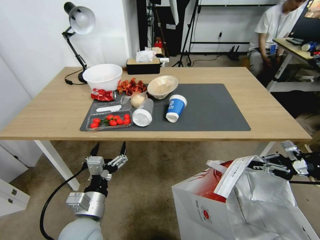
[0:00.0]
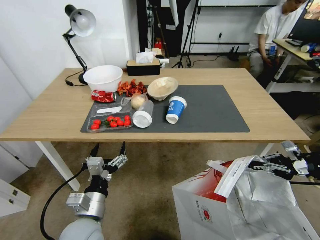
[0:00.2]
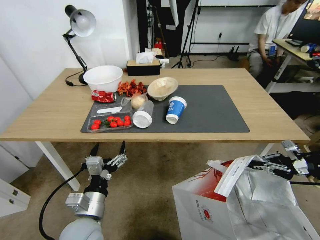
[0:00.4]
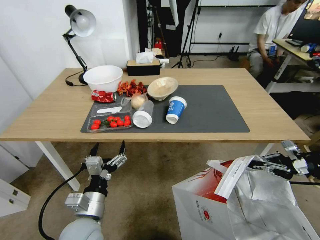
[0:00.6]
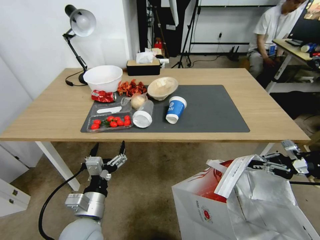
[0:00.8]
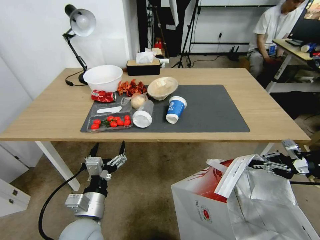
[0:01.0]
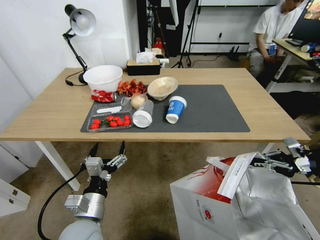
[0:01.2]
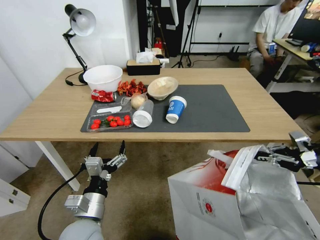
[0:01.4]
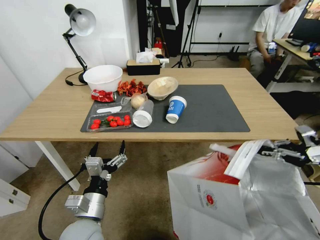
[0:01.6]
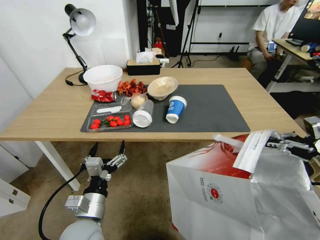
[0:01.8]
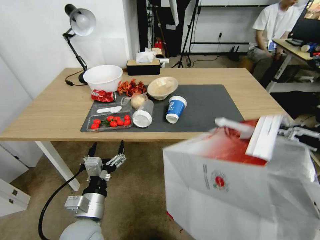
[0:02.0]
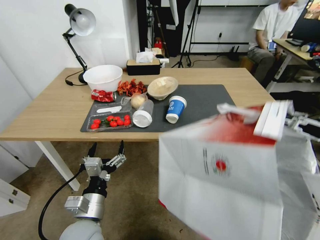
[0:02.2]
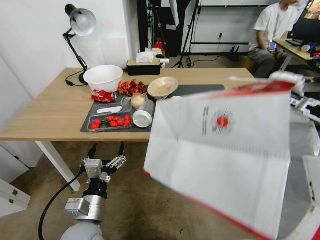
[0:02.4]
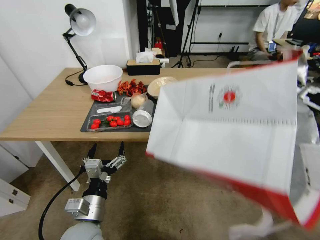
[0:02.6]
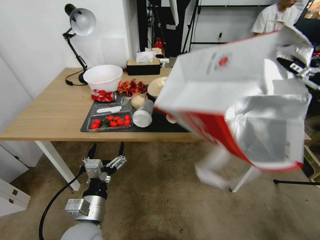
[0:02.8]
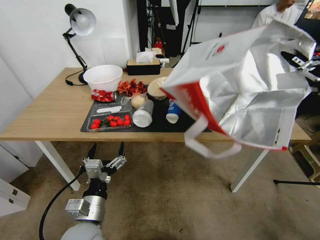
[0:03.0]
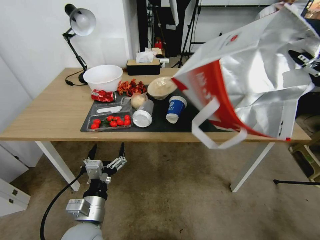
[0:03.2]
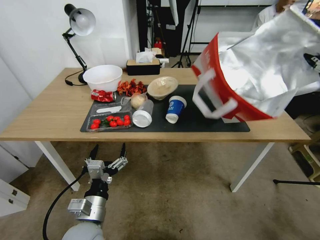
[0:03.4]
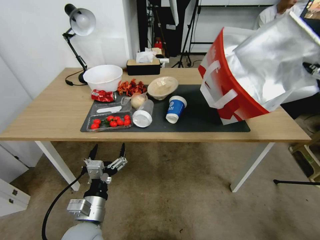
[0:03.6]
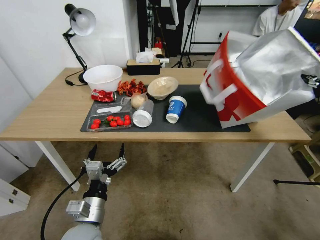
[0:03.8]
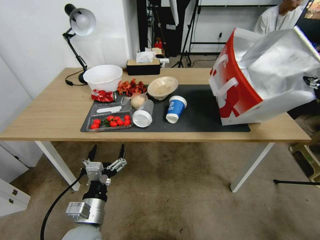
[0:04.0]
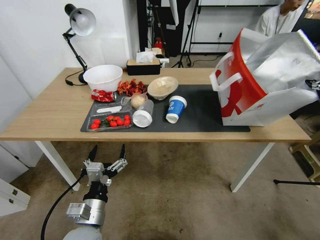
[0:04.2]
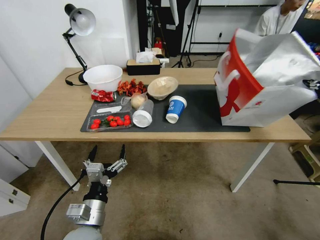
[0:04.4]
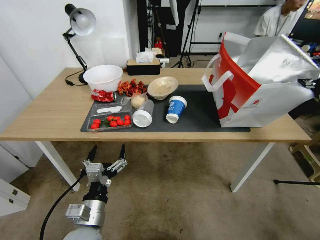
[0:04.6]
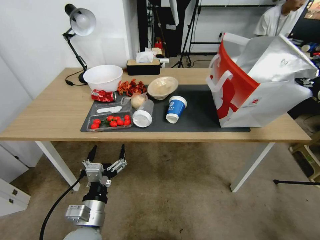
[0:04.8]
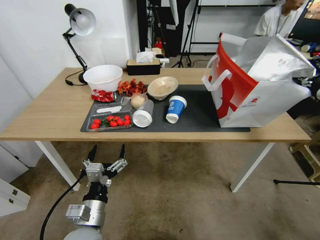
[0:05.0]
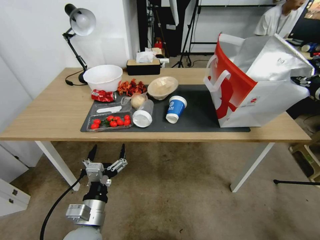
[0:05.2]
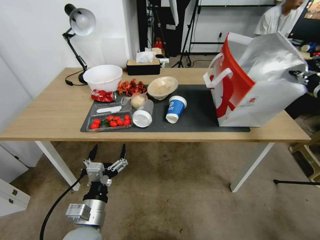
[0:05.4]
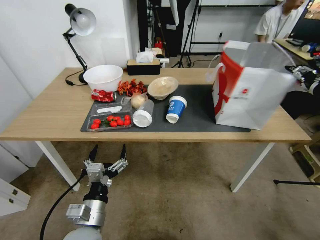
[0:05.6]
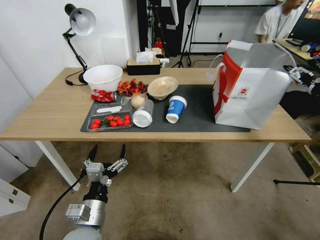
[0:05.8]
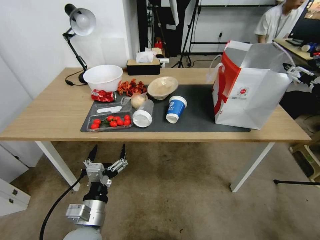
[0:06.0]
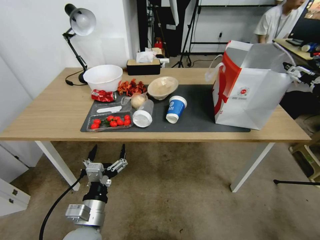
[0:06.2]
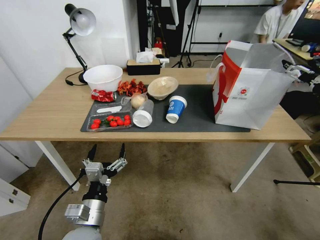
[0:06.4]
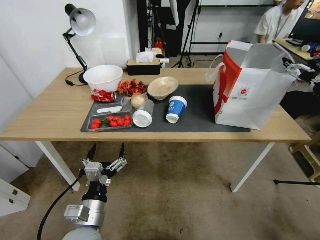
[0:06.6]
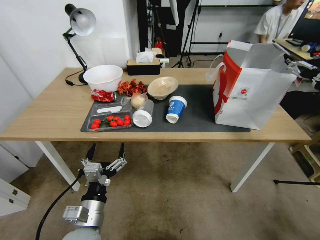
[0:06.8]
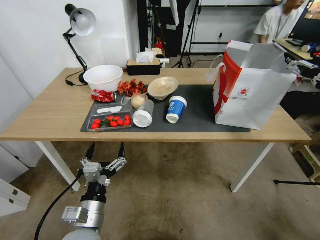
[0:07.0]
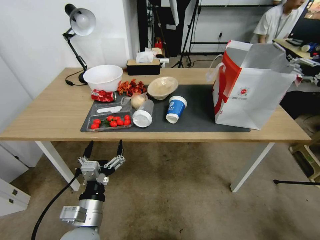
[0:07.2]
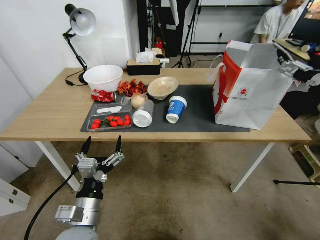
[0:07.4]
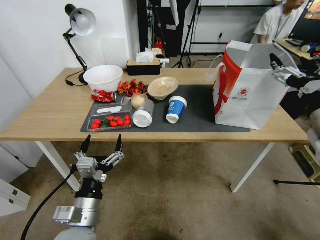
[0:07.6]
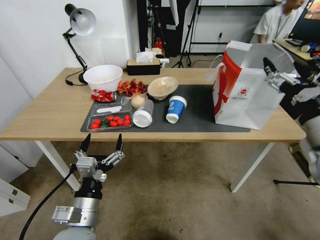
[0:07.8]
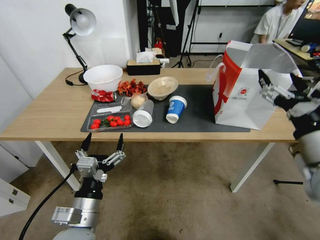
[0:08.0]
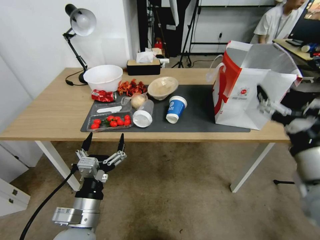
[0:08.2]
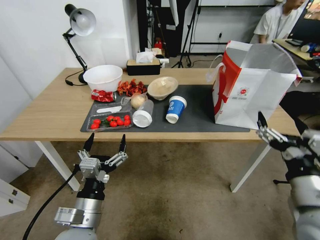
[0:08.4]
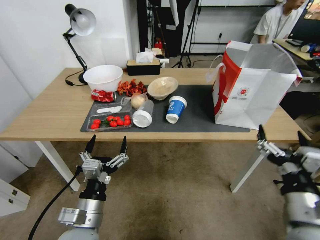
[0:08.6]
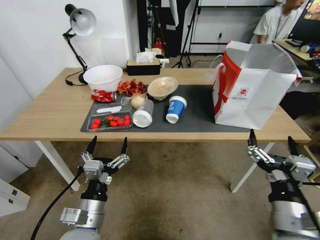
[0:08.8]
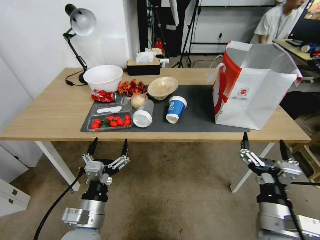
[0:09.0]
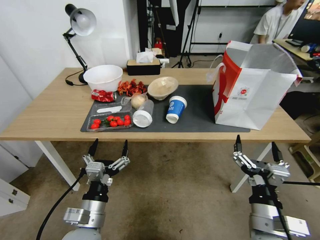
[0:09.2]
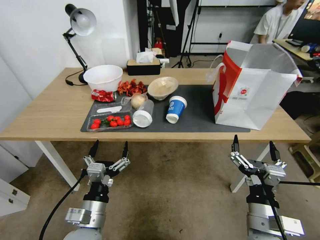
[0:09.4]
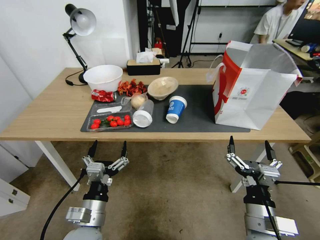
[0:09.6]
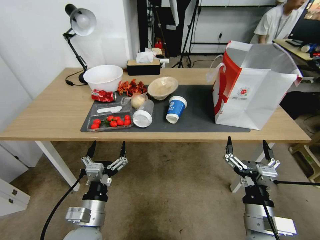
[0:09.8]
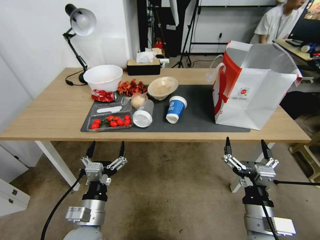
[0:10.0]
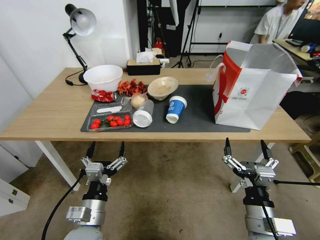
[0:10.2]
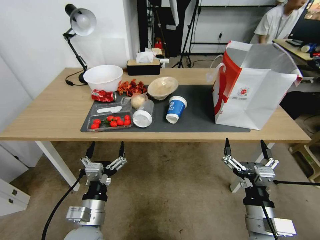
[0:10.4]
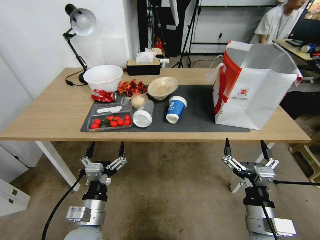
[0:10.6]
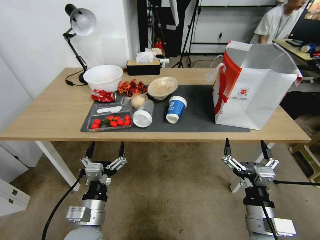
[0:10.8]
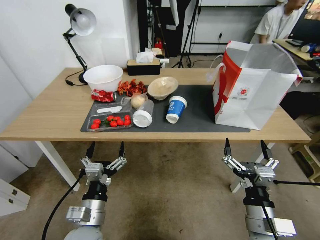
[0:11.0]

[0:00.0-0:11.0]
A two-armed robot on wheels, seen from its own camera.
Task of the whole recording: Pick up the food delivery bag from the floor and place it on the table.
0:00.0 to 0:01.6: The grippers move only a little.
0:01.6 to 0:03.2: The right gripper heads upward and to the left, covering some 10 cm.
0:04.8 to 0:06.2: The right gripper opens up.
0:06.2 to 0:07.8: The right gripper shifts about 15 cm to the left and backward.
0:07.8 to 0:09.4: The right gripper moves downward, to the left and backward, some 25 cm.
0:09.4 to 0:11.0: The grippers move only a little.

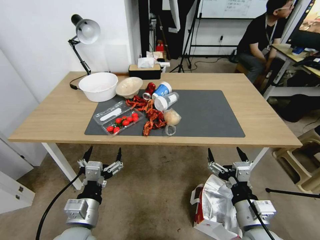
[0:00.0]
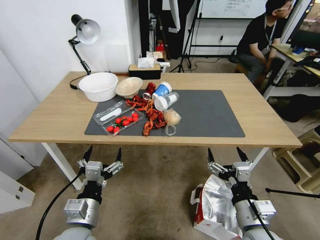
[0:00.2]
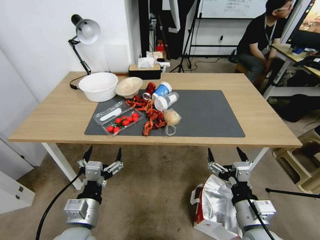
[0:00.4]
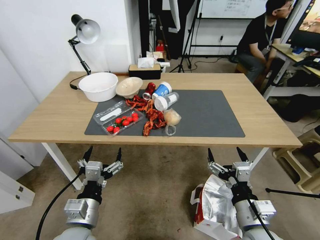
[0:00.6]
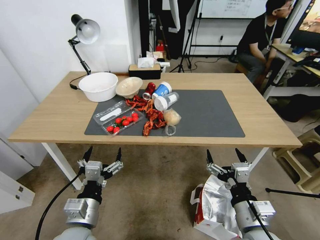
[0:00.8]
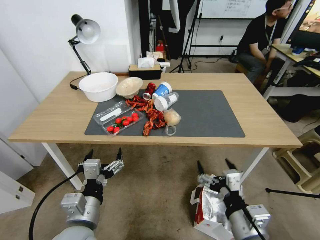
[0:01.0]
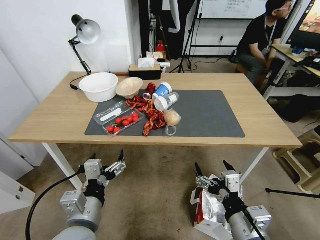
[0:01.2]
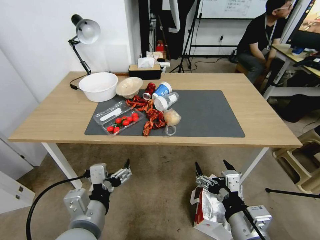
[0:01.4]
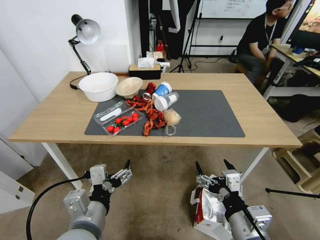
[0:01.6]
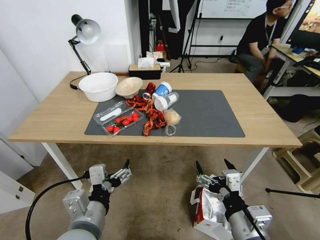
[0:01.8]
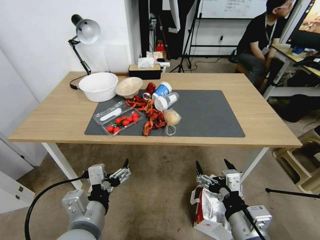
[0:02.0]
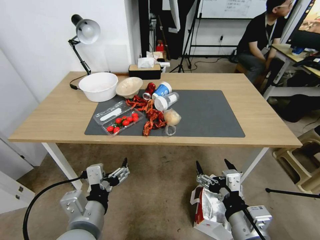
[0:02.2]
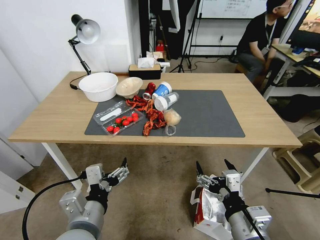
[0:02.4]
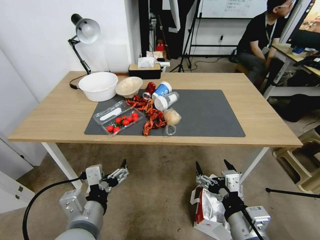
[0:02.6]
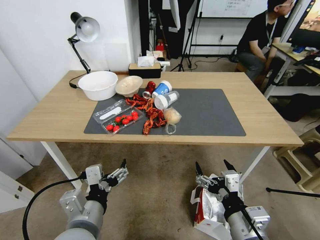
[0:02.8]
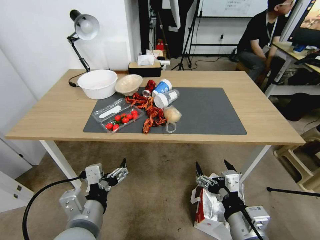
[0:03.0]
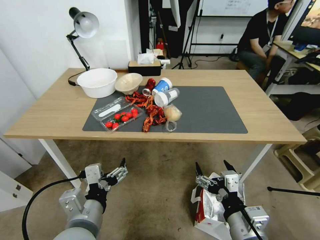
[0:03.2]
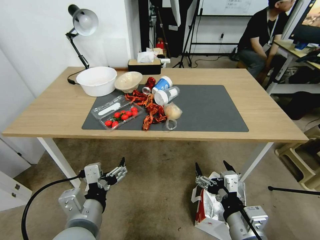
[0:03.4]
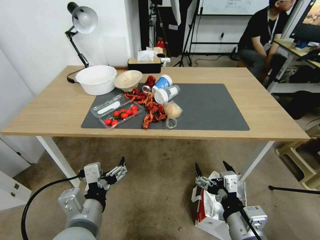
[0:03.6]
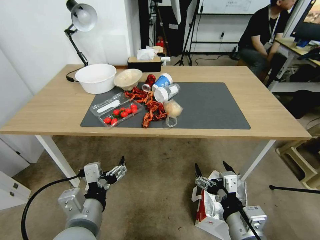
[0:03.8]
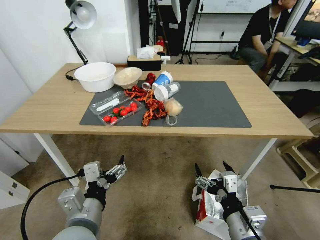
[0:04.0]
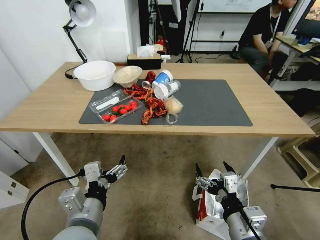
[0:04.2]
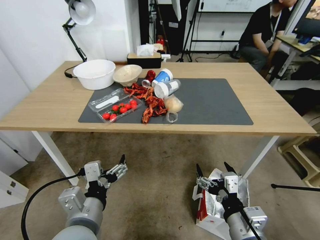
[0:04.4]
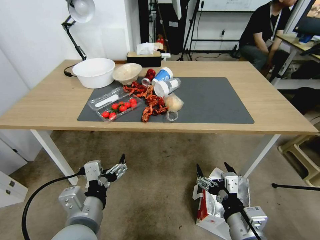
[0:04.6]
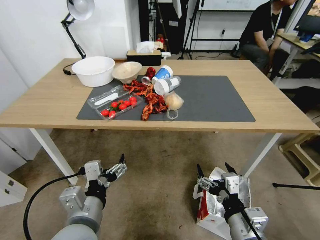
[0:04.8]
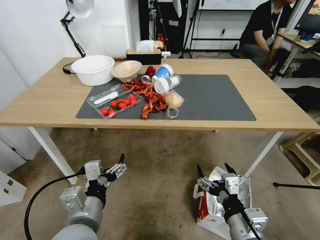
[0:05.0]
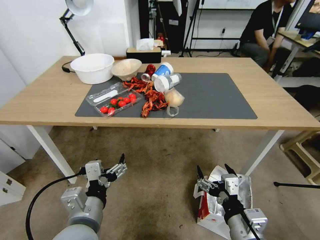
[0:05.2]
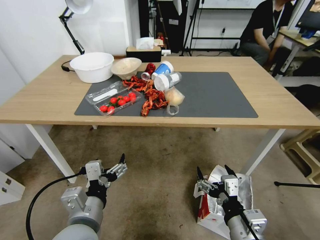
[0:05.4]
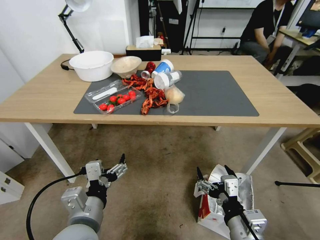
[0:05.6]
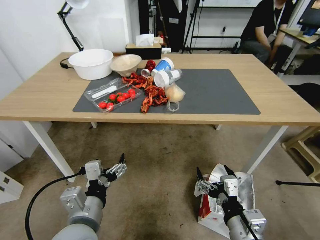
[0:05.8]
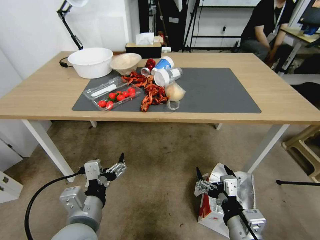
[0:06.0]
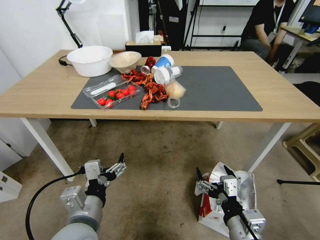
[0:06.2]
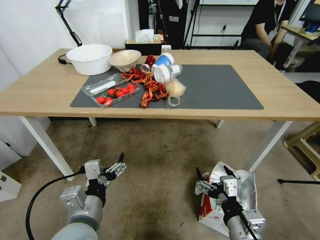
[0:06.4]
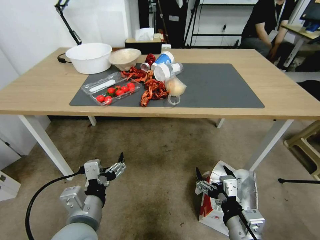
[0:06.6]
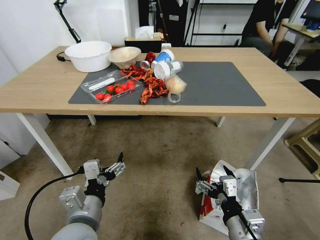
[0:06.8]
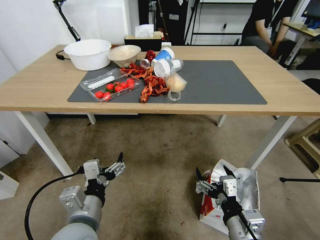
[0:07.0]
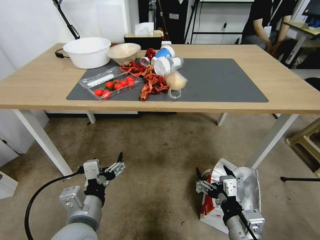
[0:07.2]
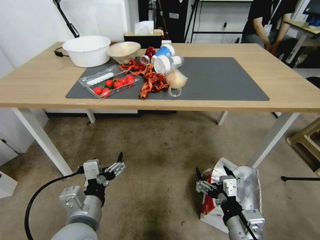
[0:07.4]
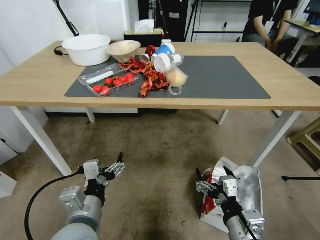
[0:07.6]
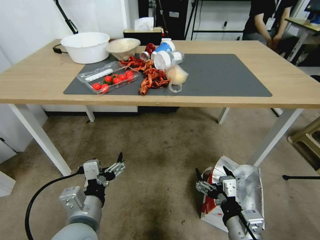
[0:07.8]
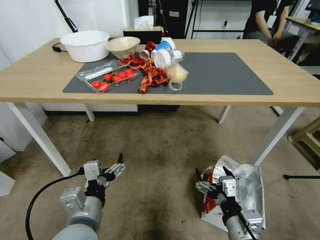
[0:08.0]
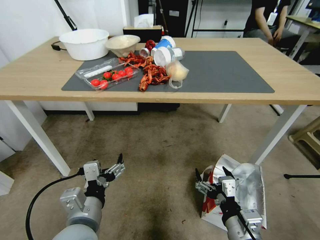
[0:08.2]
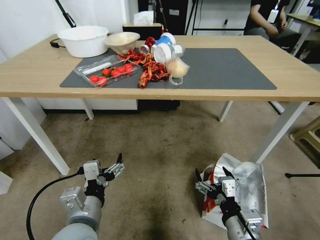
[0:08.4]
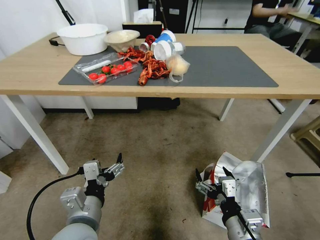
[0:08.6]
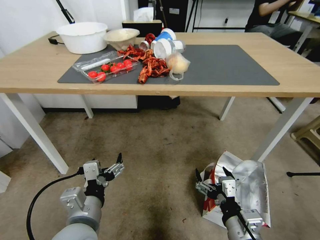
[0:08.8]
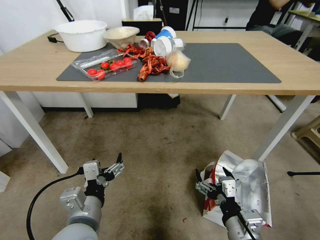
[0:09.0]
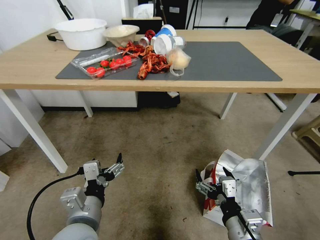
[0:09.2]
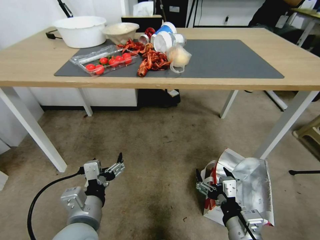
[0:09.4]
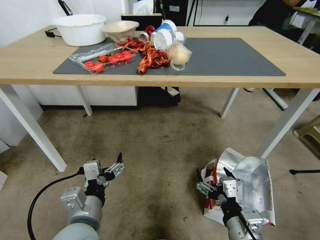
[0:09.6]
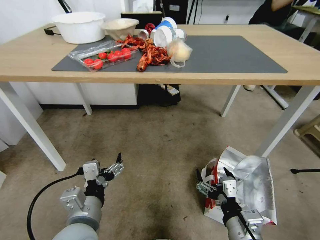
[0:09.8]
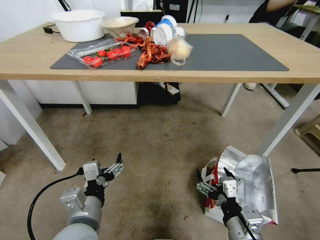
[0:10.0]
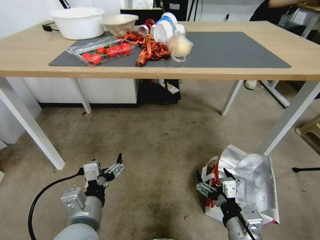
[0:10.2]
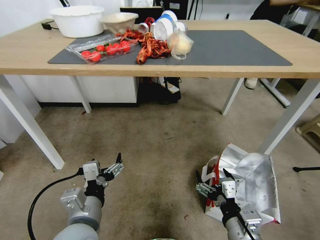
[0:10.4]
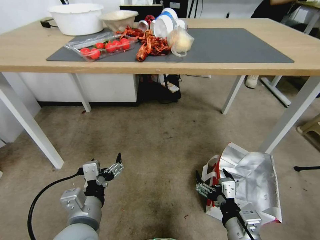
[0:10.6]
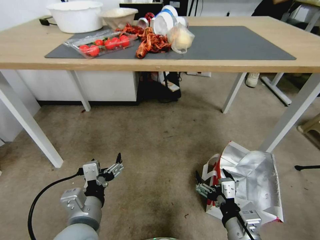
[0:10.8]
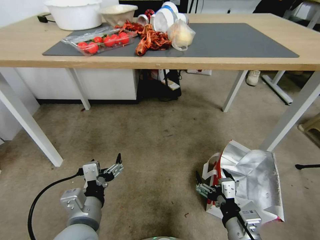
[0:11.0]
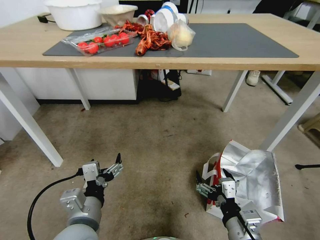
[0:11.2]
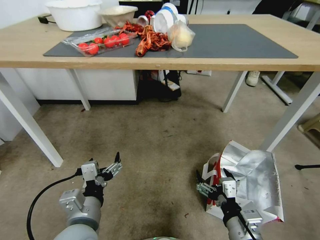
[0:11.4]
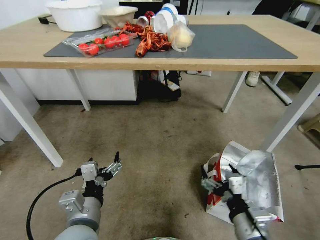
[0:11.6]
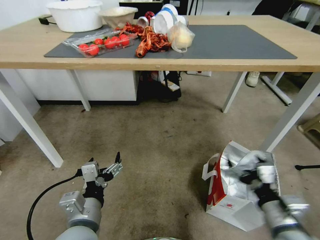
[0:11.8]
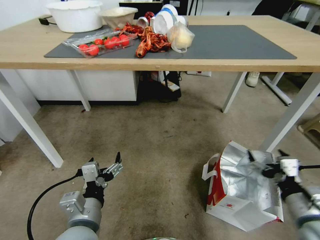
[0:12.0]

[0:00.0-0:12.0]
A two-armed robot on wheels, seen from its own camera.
Task of the whole recording: Pick up the food delivery bag from the floor and place it on the table.
0:01.6 to 0:03.0: Neither gripper changes place.
0:10.4 to 0:12.0: The right gripper goes roughly 15 cm to the right.
